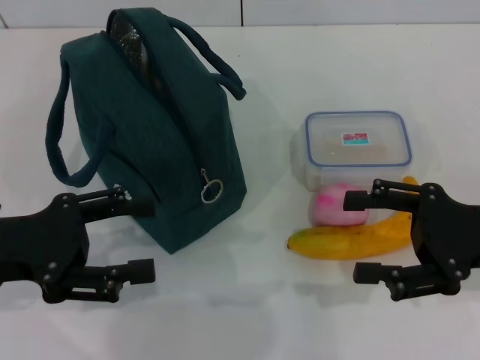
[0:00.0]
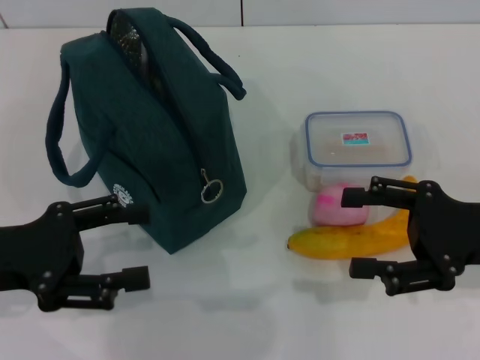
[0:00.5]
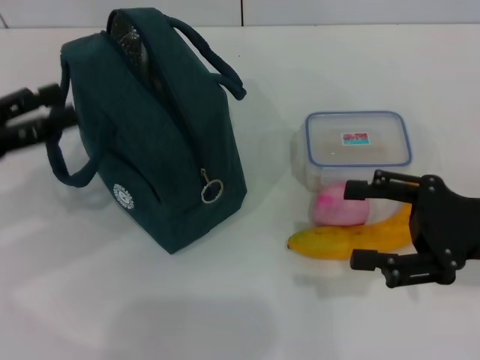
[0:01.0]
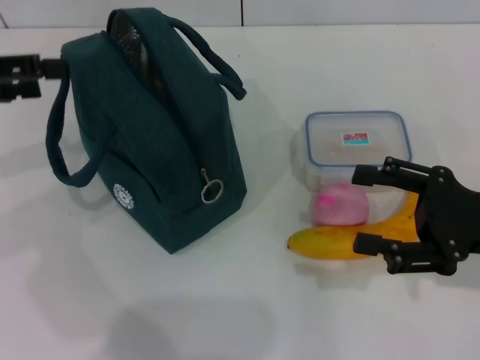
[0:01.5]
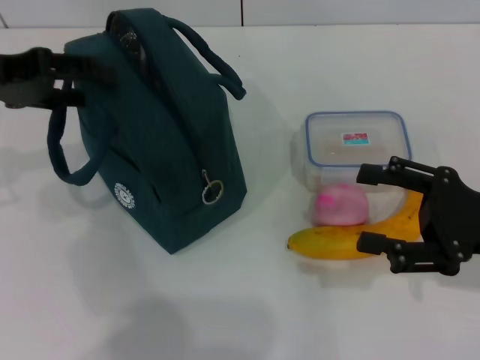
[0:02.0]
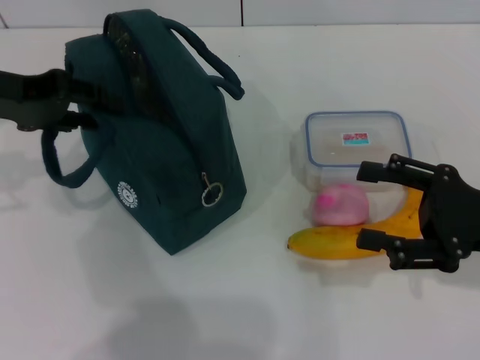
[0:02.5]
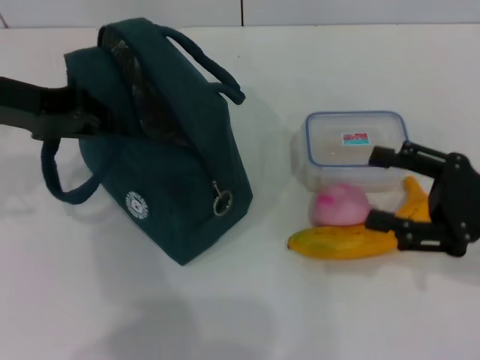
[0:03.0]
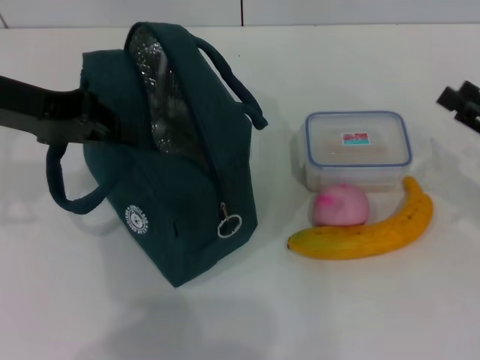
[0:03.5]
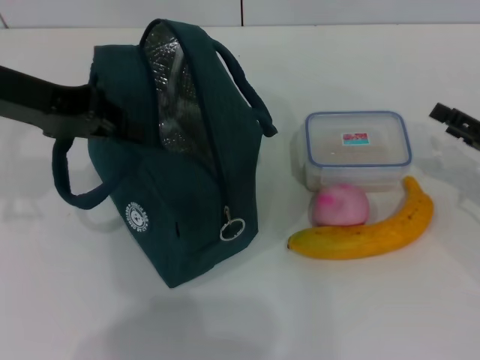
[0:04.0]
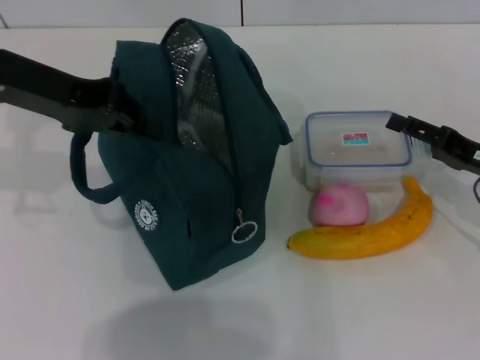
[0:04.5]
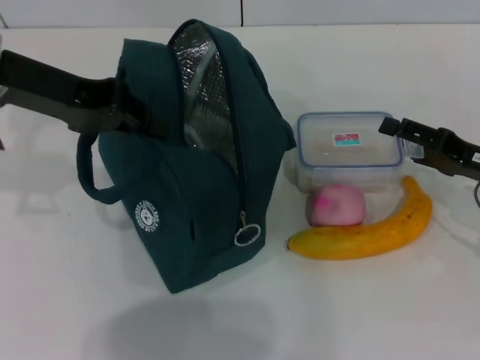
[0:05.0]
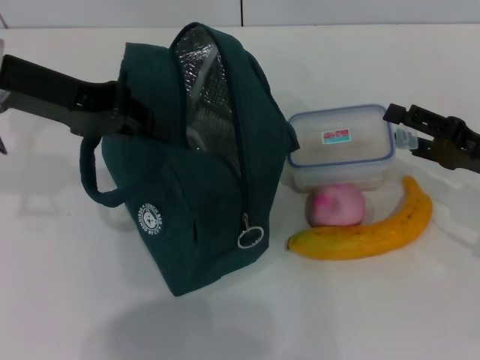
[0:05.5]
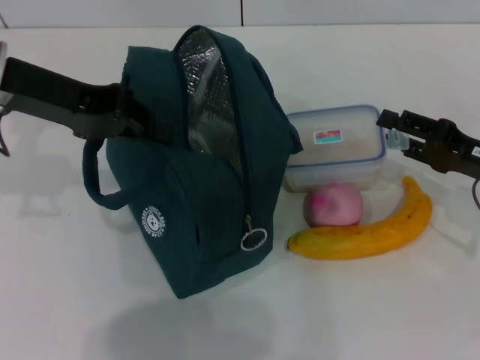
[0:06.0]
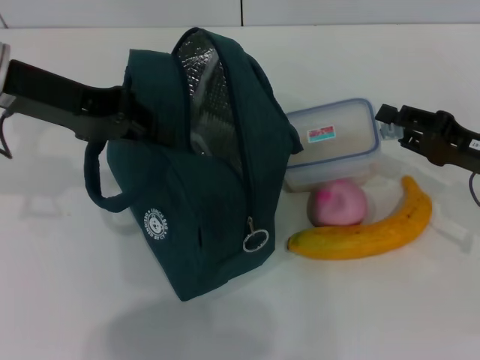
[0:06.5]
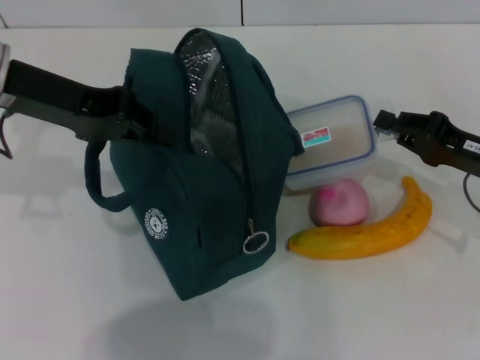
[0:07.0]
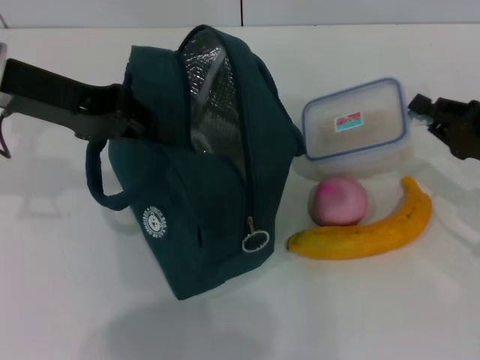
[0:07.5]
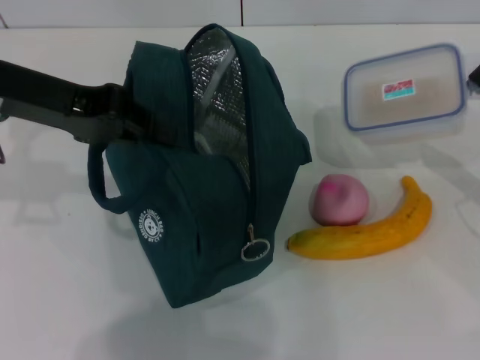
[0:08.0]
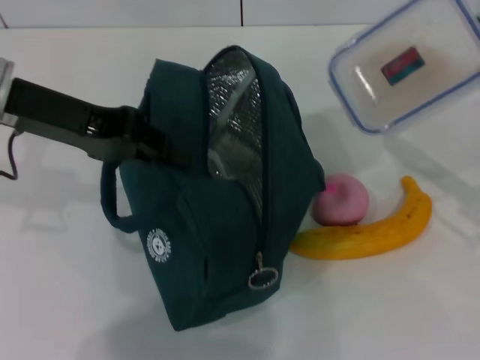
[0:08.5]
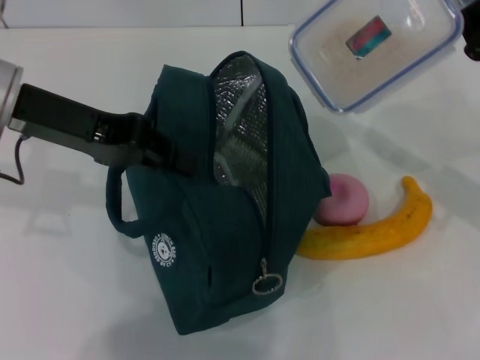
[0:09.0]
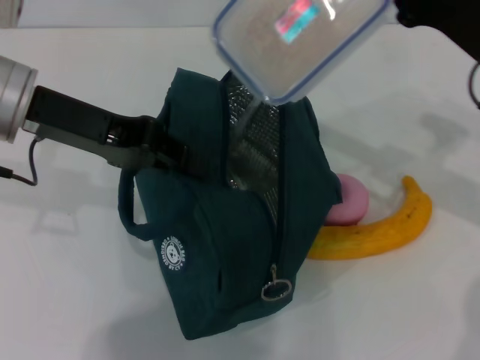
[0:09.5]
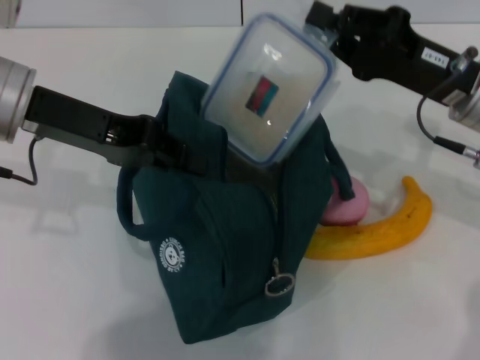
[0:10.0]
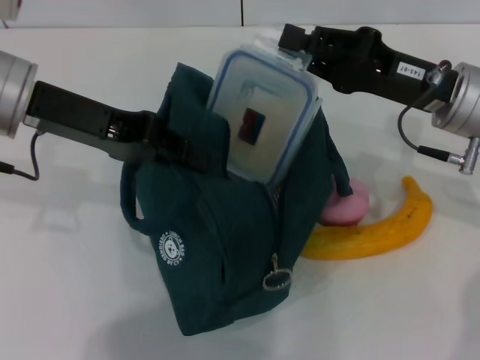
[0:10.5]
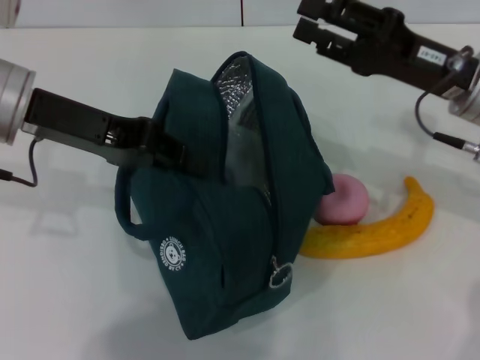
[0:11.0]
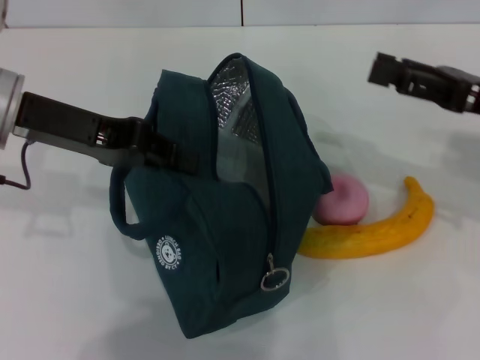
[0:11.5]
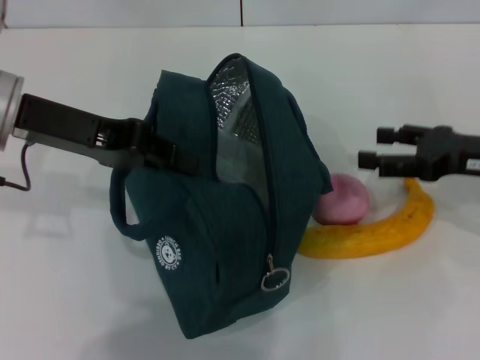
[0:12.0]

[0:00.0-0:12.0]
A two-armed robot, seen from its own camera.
Step, 0:00.0 to 0:03.5: Hold the lunch bag with your left hand.
Step, 0:04.0 to 0:06.5: Pick up the lunch box with your right hand.
Step, 0:07.0 to 0:10.5: Place the lunch box into the lunch bag with your right hand.
0:00.0 to 0:02.0: The left gripper goes about 15 cm forward and upward.
0:02.0 to 0:04.0: The right gripper is displaced to the right and forward by approximately 10 cm. The left gripper closes up.
0:04.0 to 0:06.0: The grippers stay close to where they were, moving slightly.
0:06.0 to 0:08.0: The right gripper ends up some 5 cm from where it was, and closes its fingers.
0:08.0 to 0:10.0: The right gripper shifts about 15 cm to the left, forward and upward.
0:10.0 to 0:12.0: The right gripper heads to the right, covering approximately 5 cm, and opens up.

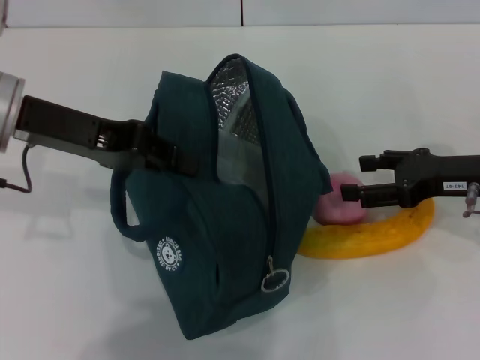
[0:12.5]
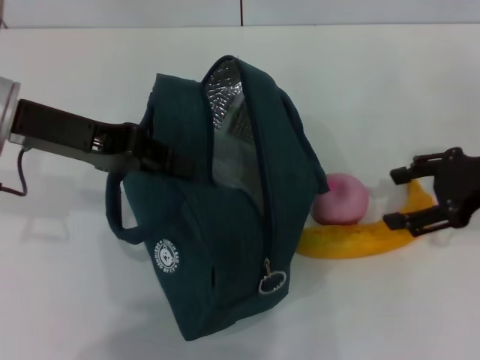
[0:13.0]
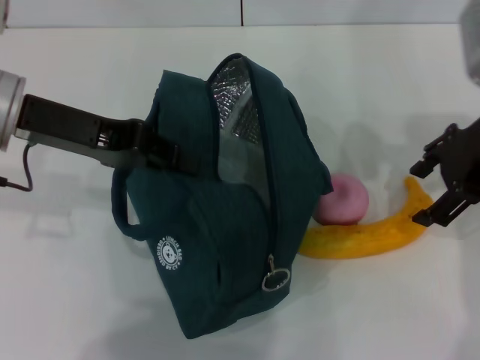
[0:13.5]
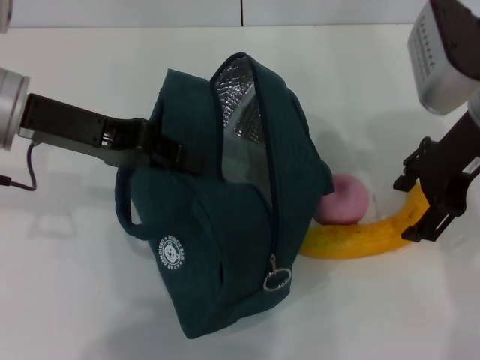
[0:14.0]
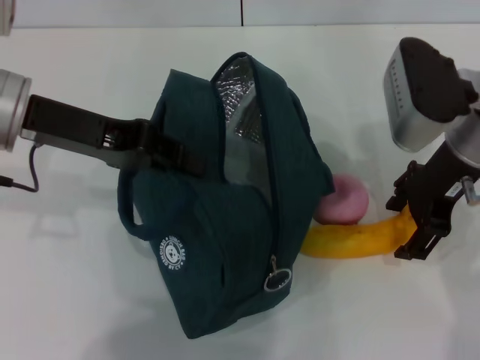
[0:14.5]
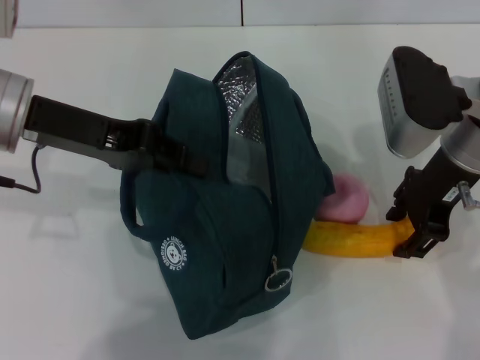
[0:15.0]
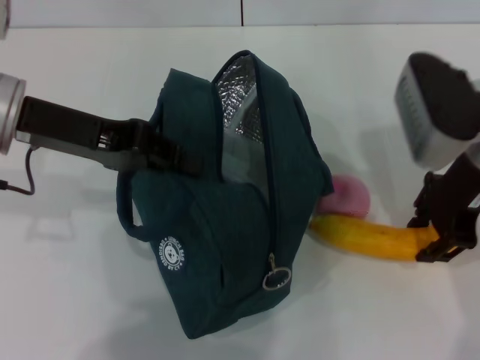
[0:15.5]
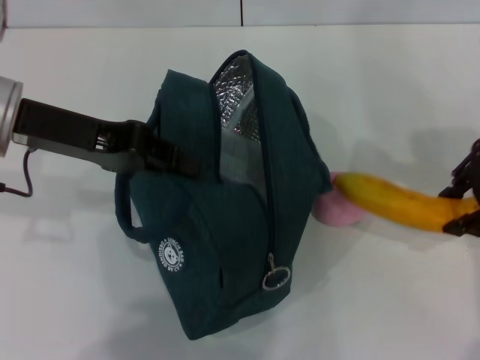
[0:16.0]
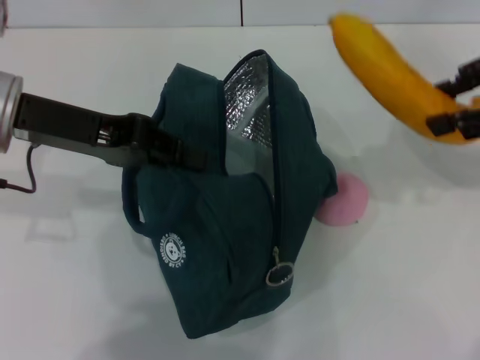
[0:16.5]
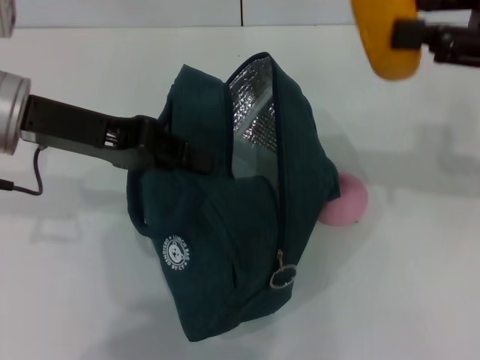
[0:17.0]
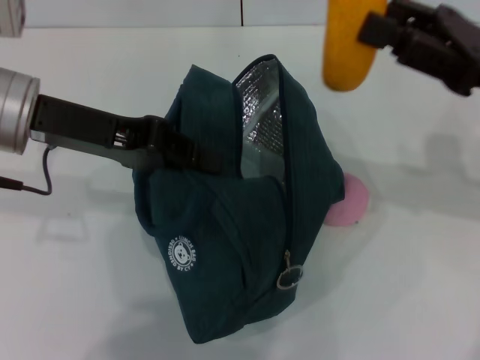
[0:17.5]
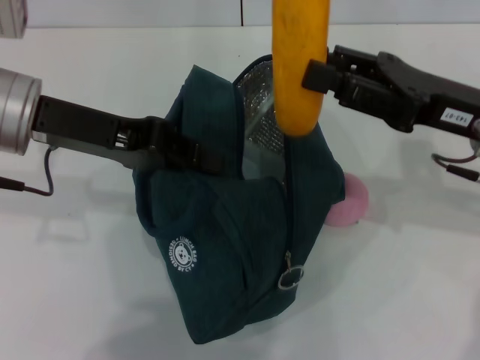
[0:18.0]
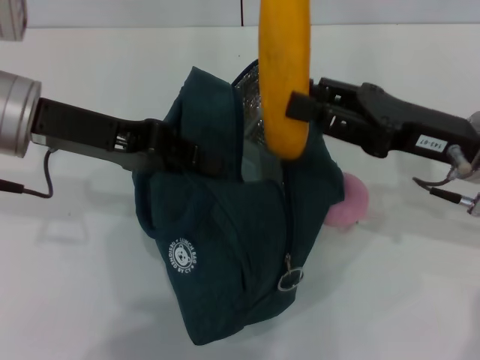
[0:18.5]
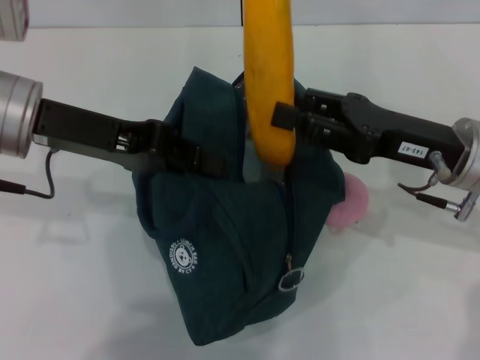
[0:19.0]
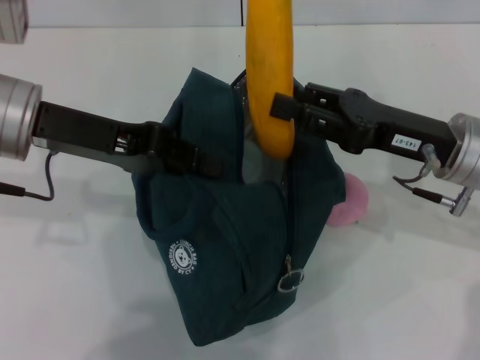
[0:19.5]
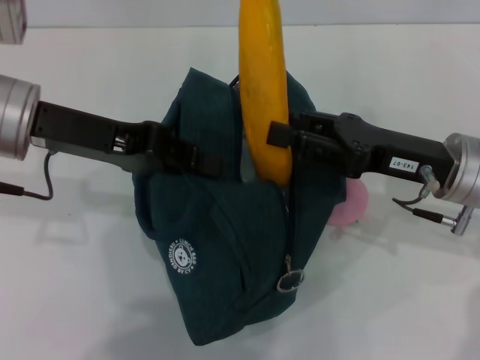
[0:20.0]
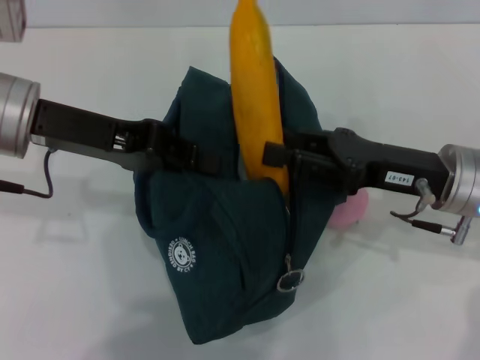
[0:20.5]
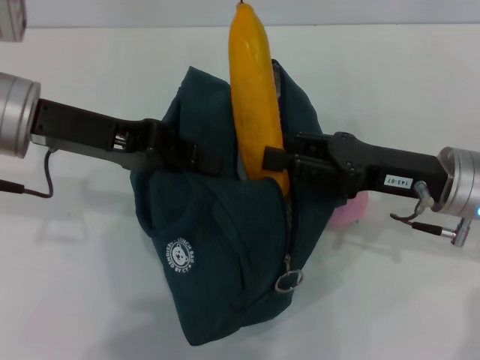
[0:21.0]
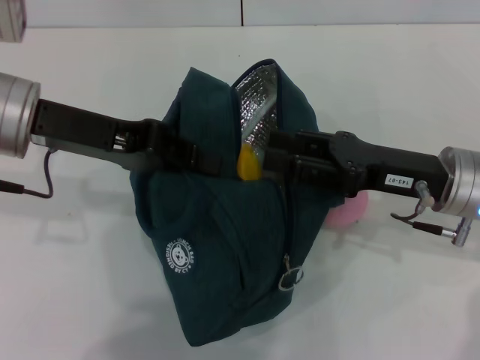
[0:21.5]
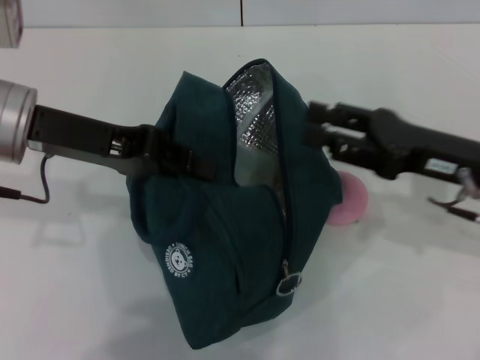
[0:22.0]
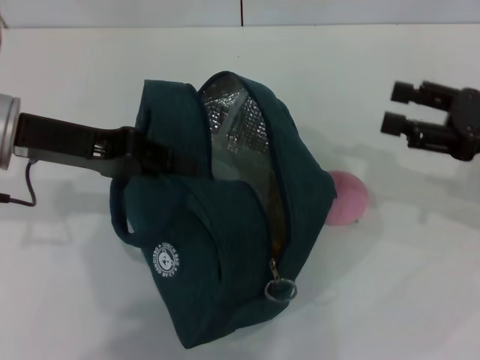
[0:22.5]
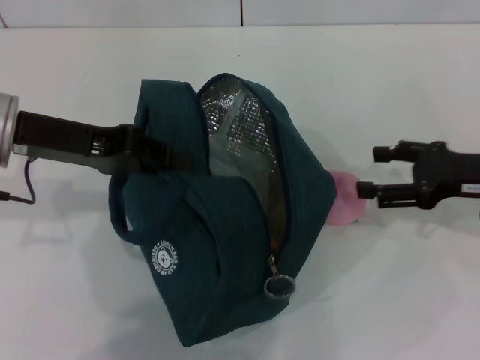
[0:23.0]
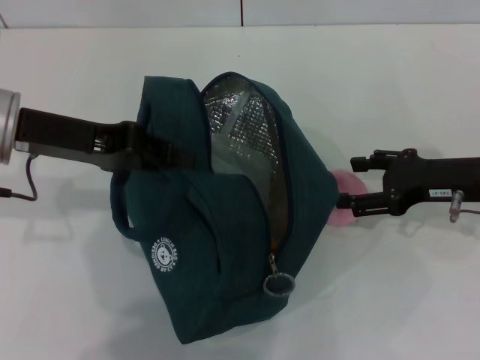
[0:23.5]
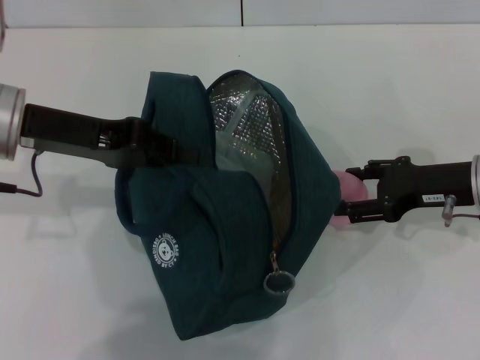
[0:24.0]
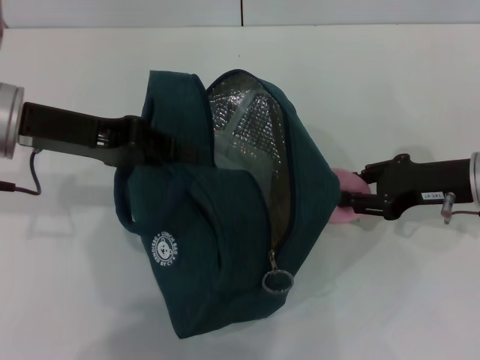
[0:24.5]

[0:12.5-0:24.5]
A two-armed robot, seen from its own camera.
Step, 0:12.5 to 0:15.0: Take the banana with your right hand.
Step, 0:15.5 to 0:21.5: Put the banana into the lunch bag with your right hand.
Step, 0:22.0 to 0:24.0: Grab the peach with your right hand.
0:12.5 to 0:14.5: The right gripper travels to the left and upward by about 10 cm.
0:14.5 to 0:16.5: The right gripper shifts about 15 cm to the right and upward, and closes.
0:16.5 to 0:18.5: The right gripper moves downward and to the left, roughly 15 cm.
0:18.5 to 0:20.5: The grippers make only small movements.
0:20.5 to 0:22.5: The right gripper is displaced to the right by roughly 10 cm.
0:22.5 to 0:24.5: The right gripper shifts approximately 5 cm to the left.

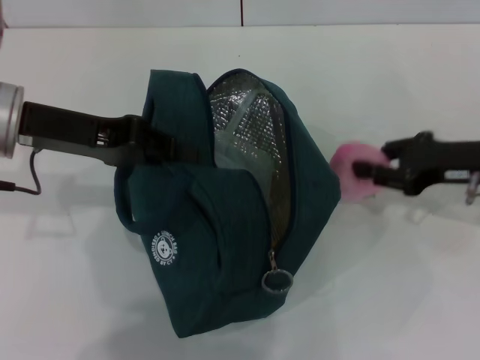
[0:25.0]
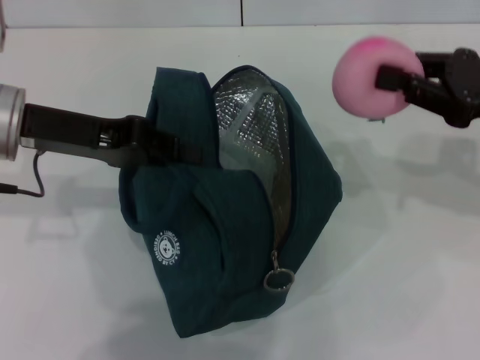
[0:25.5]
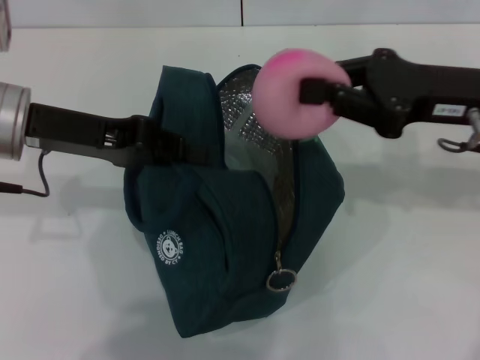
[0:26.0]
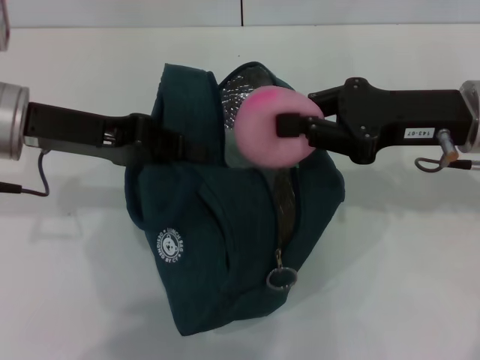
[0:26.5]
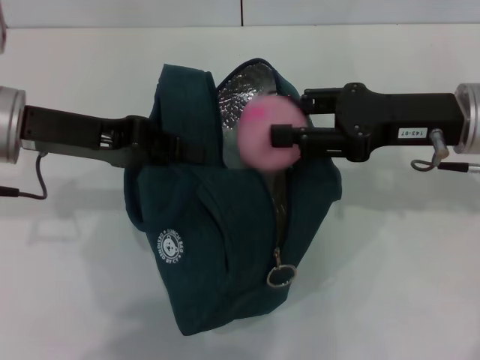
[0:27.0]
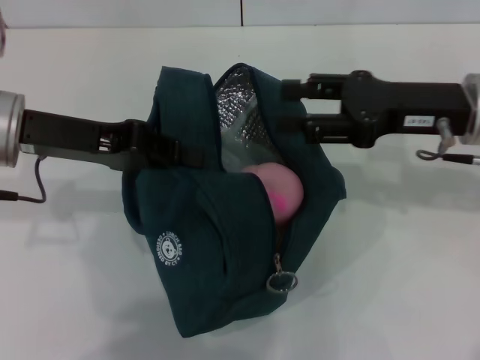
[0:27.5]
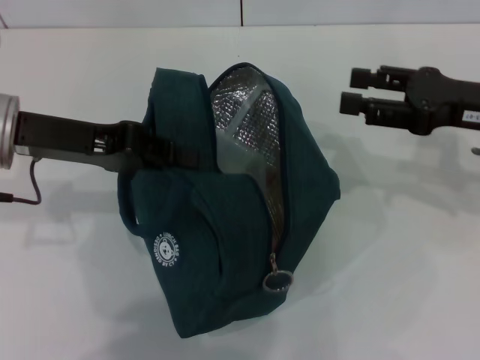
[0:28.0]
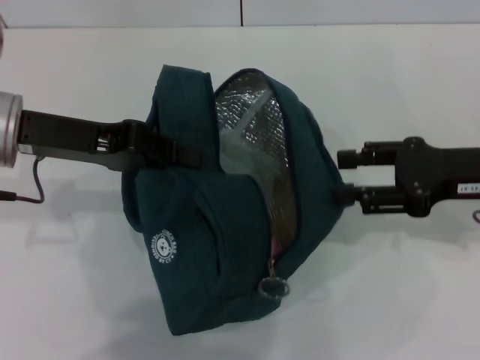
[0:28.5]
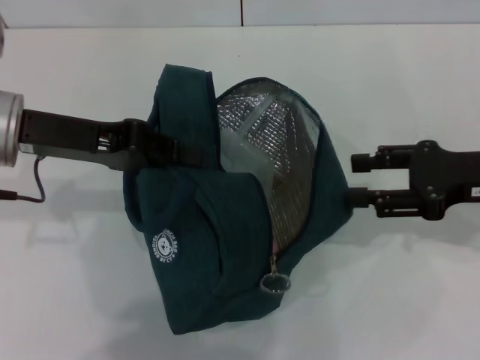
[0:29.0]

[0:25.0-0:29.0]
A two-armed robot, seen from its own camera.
0:25.0 to 0:27.0: The right gripper heads to the left and upward, covering roughly 10 cm.
0:27.0 to 0:29.0: The right gripper goes about 5 cm to the right, and opens up.
